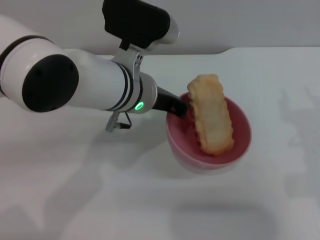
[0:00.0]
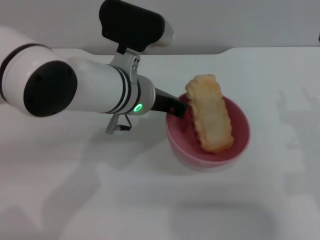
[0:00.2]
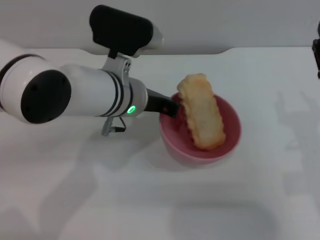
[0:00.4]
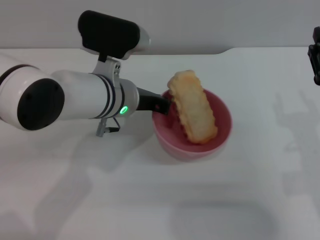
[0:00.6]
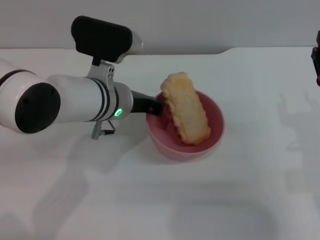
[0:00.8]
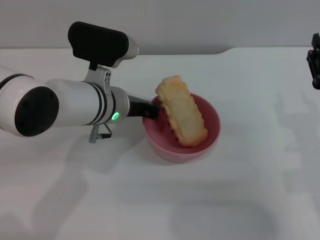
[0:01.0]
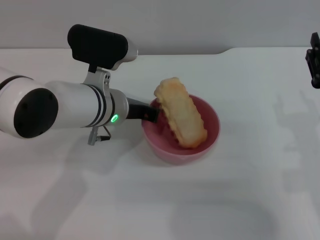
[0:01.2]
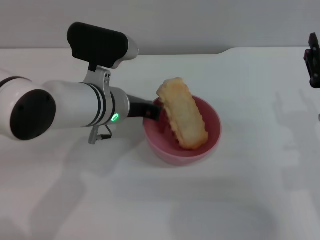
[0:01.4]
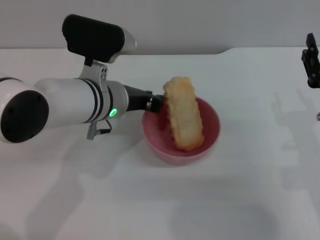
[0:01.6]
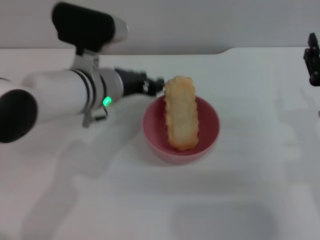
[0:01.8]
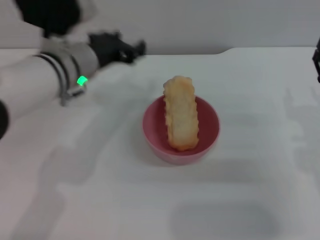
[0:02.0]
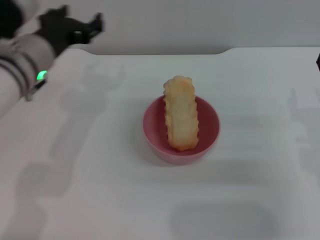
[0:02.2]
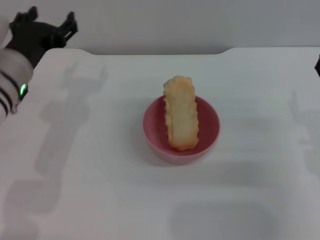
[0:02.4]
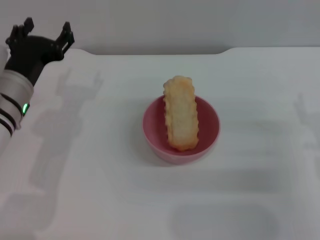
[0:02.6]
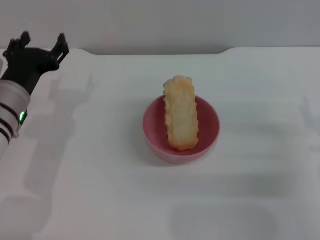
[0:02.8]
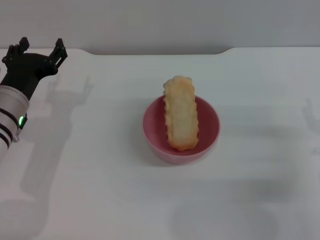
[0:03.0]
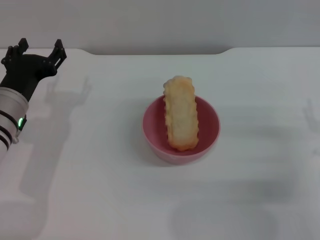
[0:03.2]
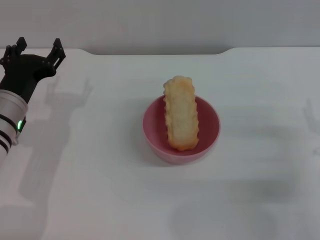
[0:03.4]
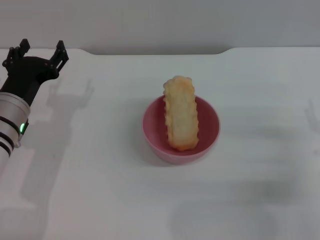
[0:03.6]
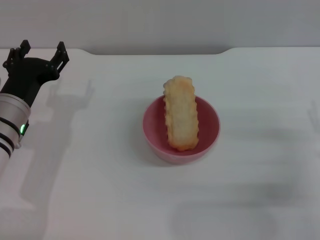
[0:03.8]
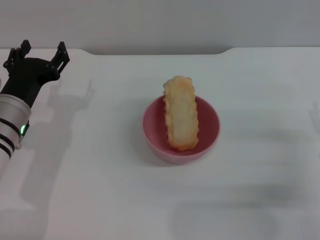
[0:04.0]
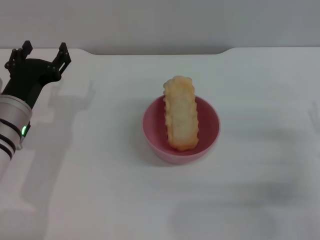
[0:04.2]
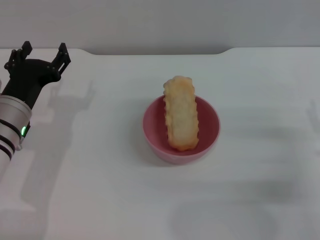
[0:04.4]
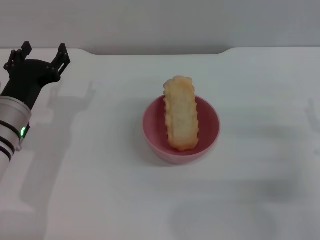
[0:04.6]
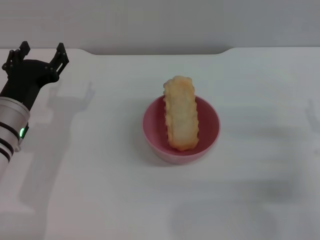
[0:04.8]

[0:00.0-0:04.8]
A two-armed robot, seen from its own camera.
Task of the whole recording: put the bread into the pink bowl and pour it out repeatedly.
Step, 0:00.0 to 0:01.8: Place the bowl on the table.
0:00.0 to 0:01.6: The left gripper changes place by some 5 cm.
0:01.6 to 0:03.2: The left gripper heads to the left, covering some 15 cm, and opens its fingers, while the right gripper goes some 5 cm to the right.
0:03.2 to 0:04.8: There are only small adjustments of the grippers.

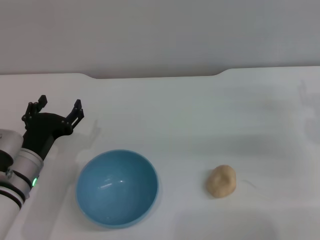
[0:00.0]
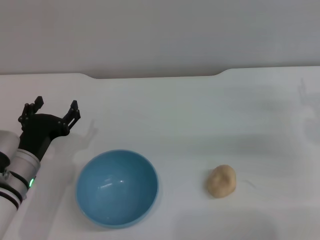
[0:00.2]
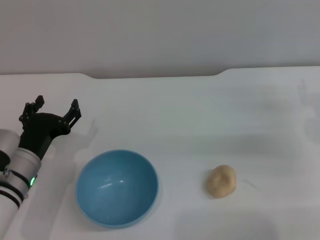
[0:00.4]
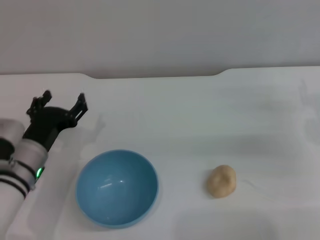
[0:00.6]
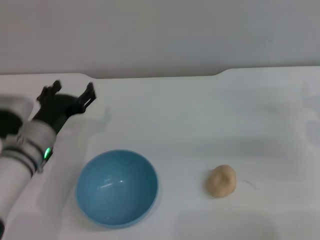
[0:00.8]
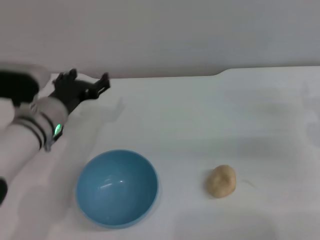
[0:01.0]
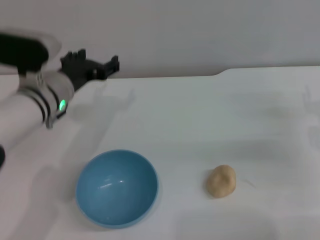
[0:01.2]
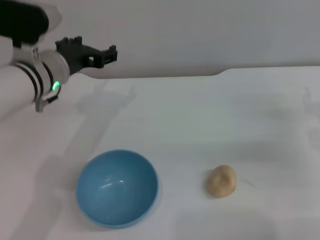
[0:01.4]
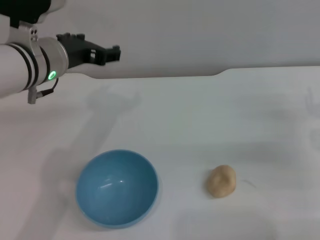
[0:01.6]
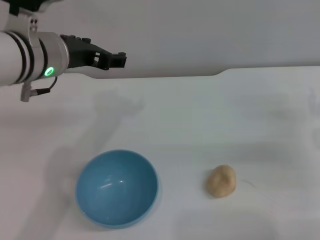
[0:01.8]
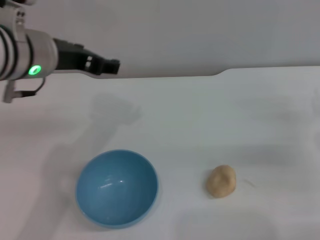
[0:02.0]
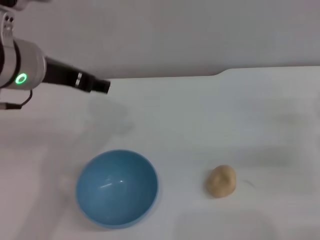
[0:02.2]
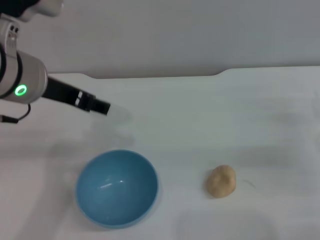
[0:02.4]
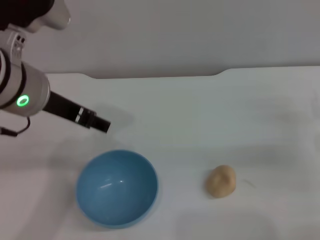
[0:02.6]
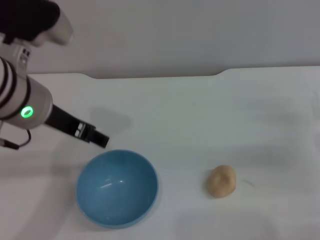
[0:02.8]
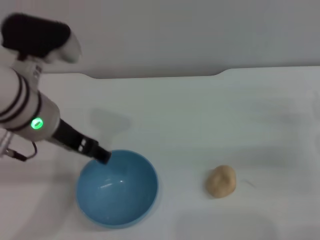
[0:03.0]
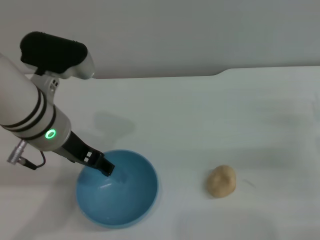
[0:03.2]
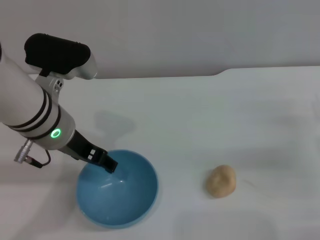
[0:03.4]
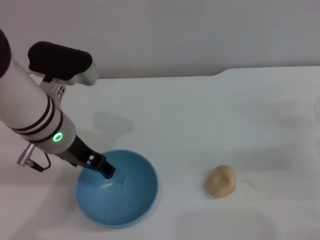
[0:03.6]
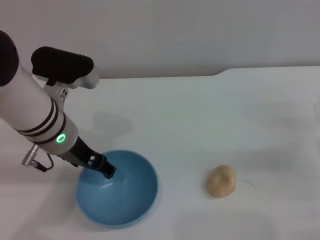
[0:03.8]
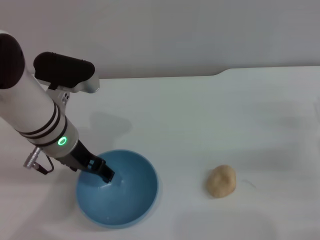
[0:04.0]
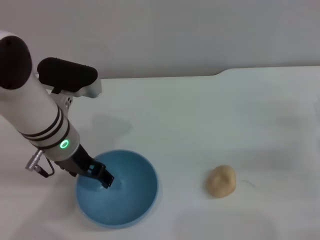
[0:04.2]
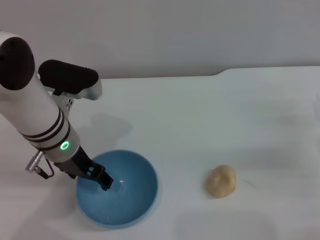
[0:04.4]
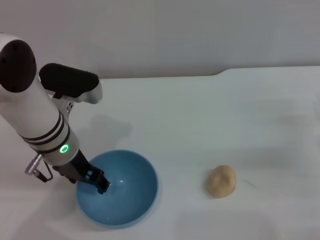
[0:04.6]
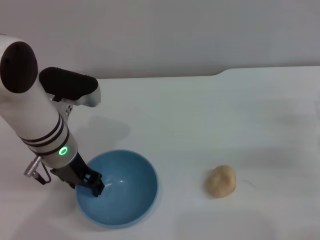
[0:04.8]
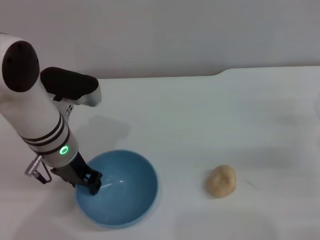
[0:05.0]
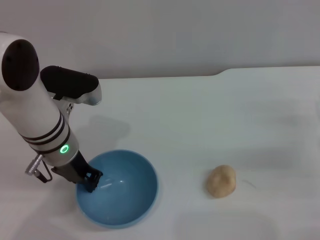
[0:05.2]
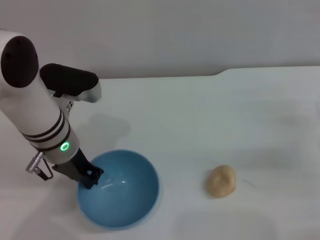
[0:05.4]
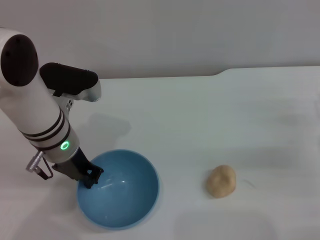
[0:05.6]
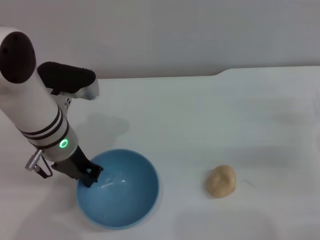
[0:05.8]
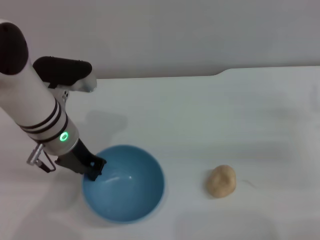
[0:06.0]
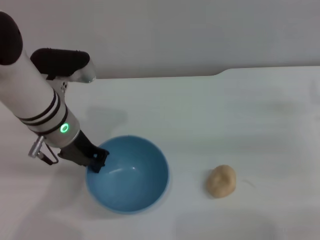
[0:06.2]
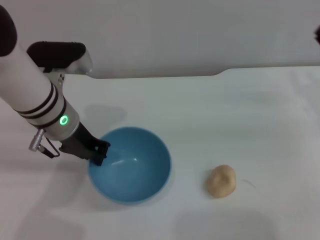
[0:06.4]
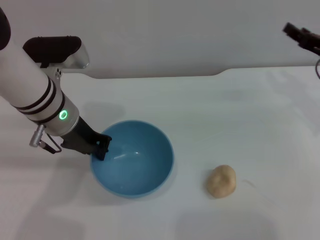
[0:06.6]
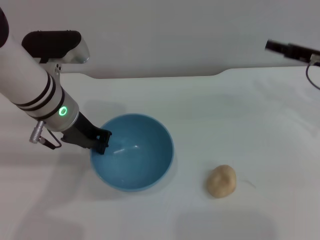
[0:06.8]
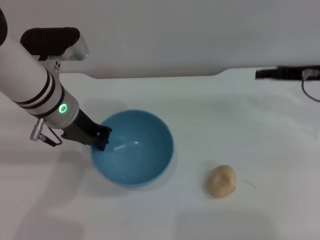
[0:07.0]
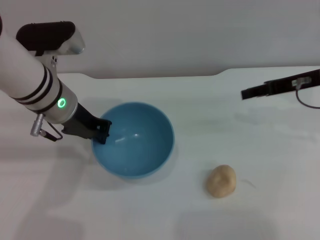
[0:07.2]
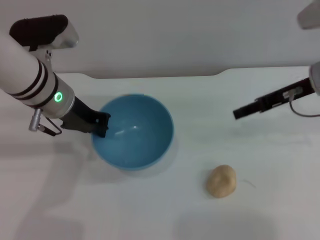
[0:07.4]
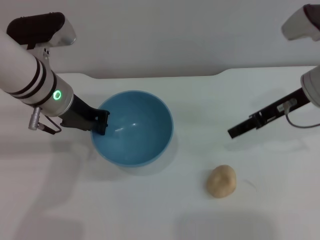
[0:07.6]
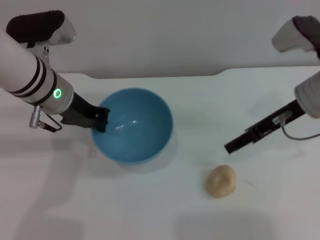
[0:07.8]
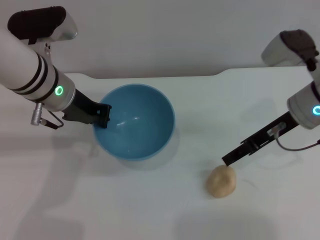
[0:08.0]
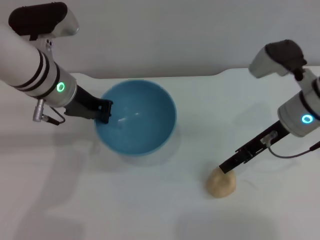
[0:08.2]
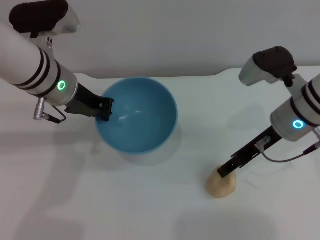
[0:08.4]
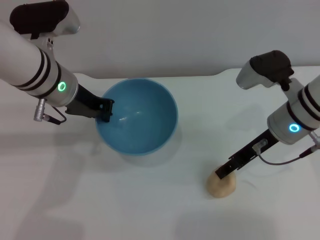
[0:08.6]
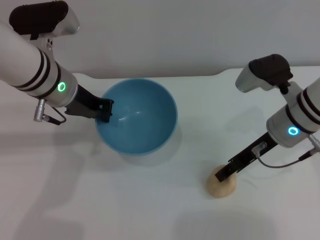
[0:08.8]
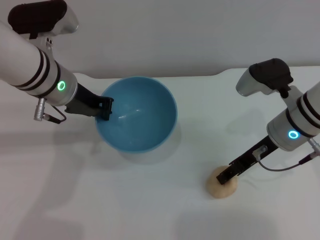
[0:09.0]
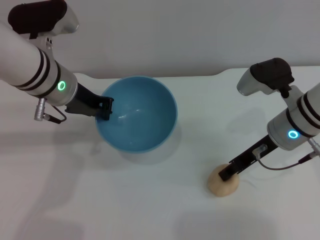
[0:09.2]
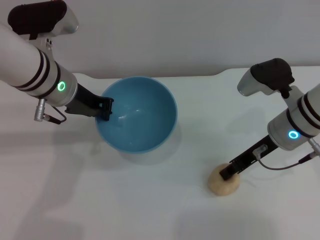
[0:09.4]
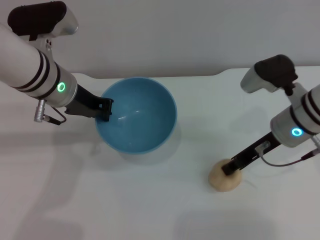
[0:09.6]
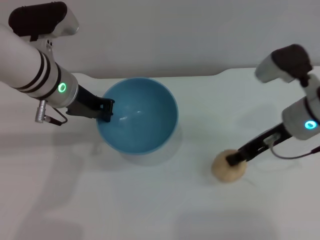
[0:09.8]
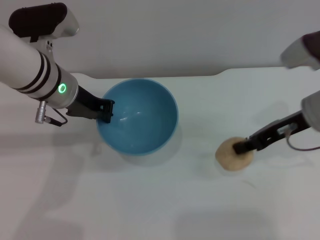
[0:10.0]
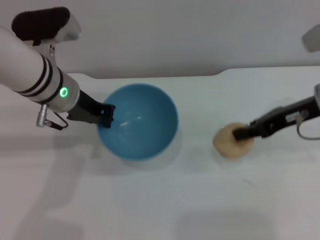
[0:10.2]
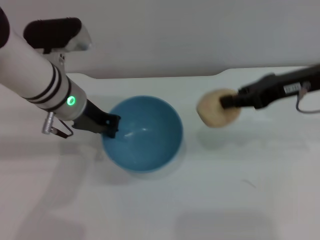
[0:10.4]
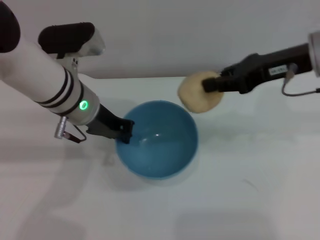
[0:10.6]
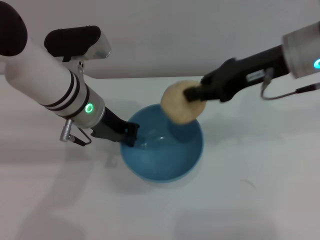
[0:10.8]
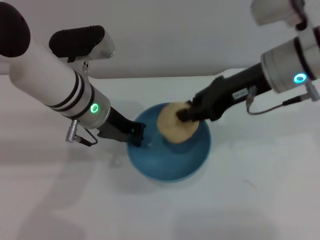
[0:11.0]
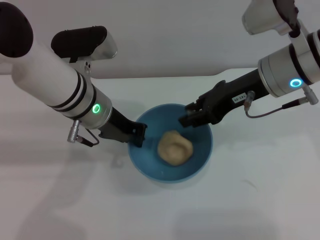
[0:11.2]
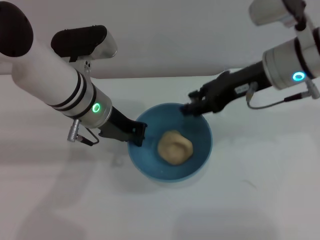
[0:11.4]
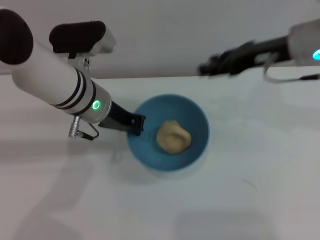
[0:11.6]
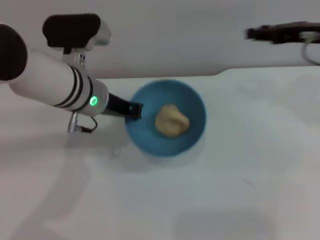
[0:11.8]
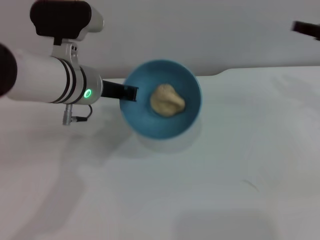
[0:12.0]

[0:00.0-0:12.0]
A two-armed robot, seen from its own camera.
Task of the whole recording: put the egg yolk pastry into the blue bowl and pour it out repeatedly.
Step, 0:00.0 to 0:07.2: Pick up the bowl with the left gripper.
Step, 0:07.6 to 0:10.2: Pick up the egg yolk pastry with the right gripper.
Step, 0:10.4 to 0:11.6: Place the egg yolk pastry into the bowl.
0:00.0 to 0:01.6: The left gripper travels upward and forward by about 20 cm.
0:01.6 to 0:03.0: The left gripper goes some 5 cm backward.
0:03.0 to 0:04.4: The left gripper moves downward, roughly 10 cm.
0:04.4 to 0:06.0: The left gripper closes its fingers.
0:06.0 to 0:07.6: The right gripper travels upward, to the left and forward by some 15 cm.
0:07.6 to 0:09.0: The right gripper shifts about 5 cm downward.
0:09.0 to 0:10.4: The right gripper is displaced upward by about 10 cm, and closes up.
0:10.4 to 0:12.0: The right gripper travels to the right by about 10 cm, and opens up.

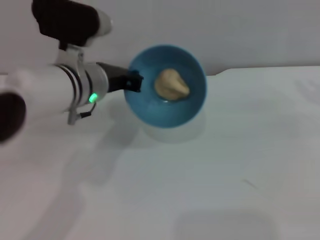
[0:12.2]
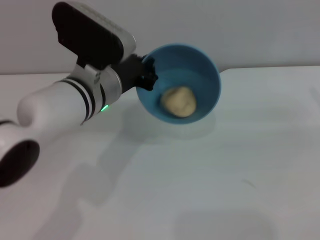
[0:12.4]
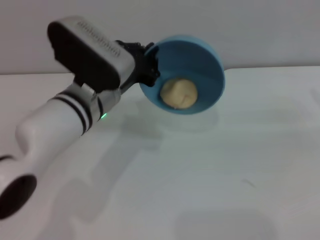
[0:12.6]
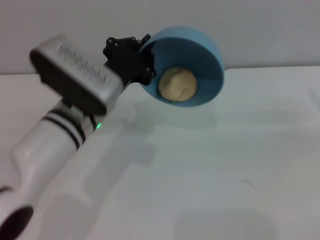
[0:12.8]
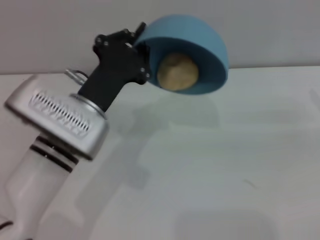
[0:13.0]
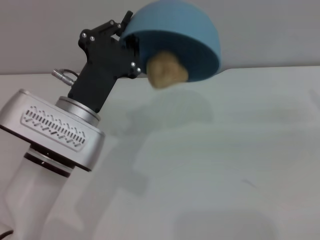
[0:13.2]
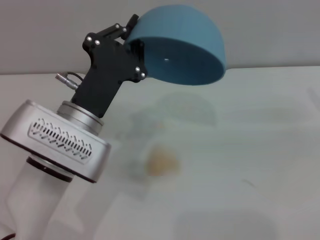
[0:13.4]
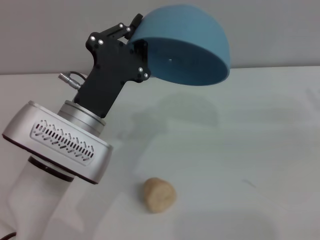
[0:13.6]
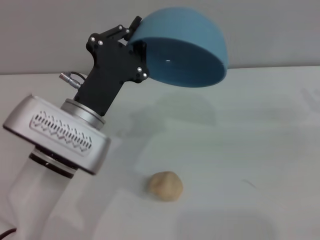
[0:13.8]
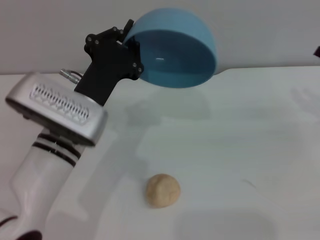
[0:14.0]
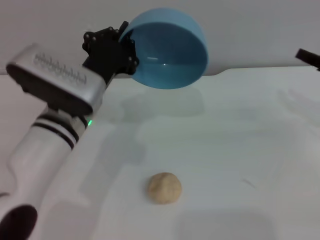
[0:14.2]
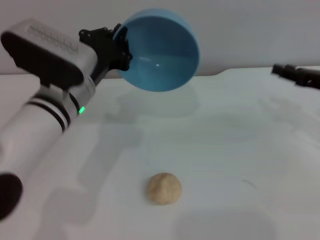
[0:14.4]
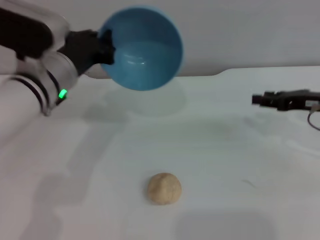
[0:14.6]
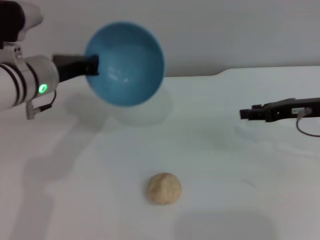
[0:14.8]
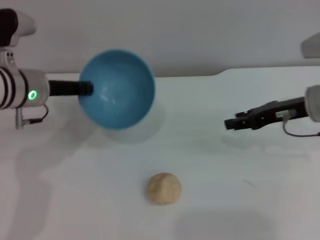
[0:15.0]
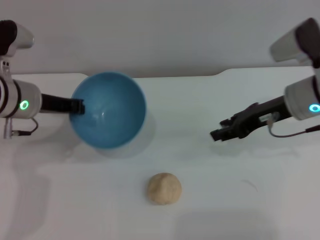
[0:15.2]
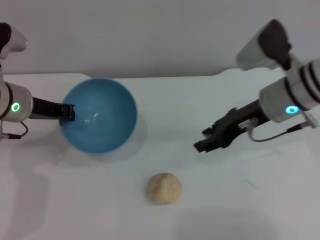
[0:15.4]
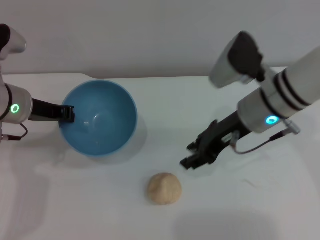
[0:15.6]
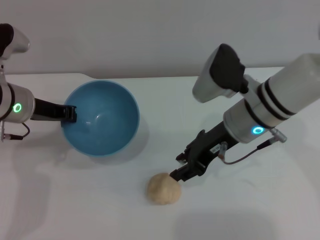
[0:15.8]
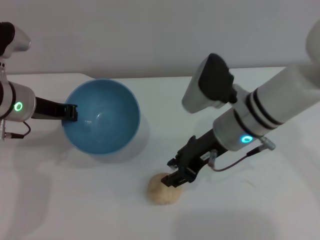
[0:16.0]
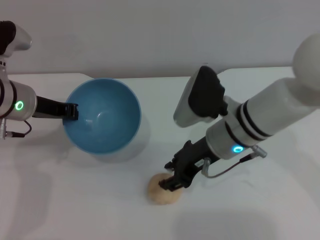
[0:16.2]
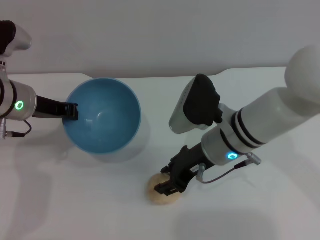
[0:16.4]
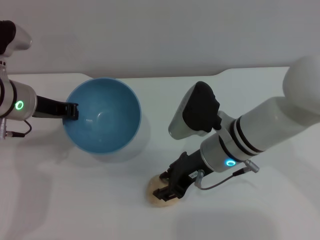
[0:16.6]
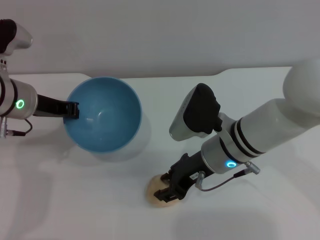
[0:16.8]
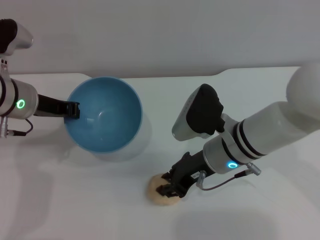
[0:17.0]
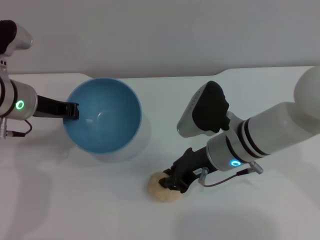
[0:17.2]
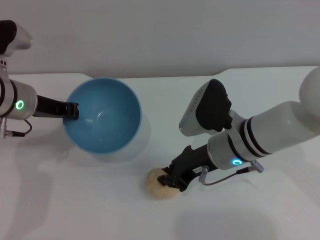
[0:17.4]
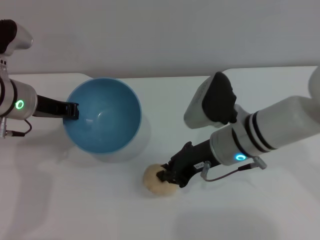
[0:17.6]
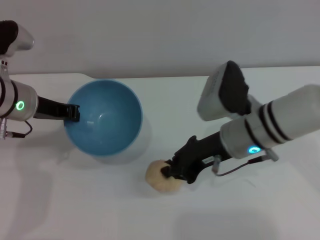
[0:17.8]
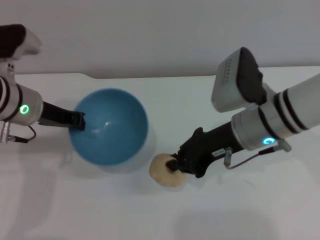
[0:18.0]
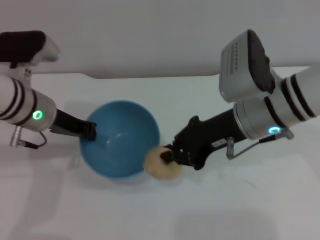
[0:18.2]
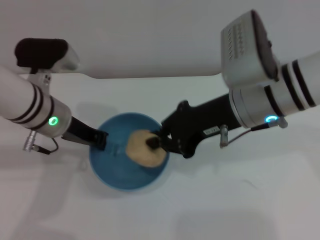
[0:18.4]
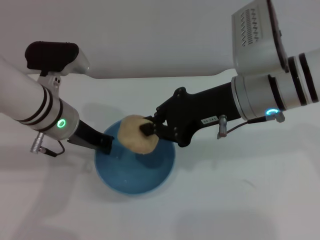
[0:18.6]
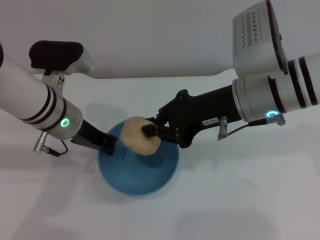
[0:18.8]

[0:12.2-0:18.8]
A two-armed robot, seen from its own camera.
Task of the whole recording: put the egg yolk pastry into the blue bowl and pour it out repeatedly.
Step, 0:12.2 to 0:13.4: Pour the egg yolk pastry out of bowl.
Step, 0:13.8 to 0:18.0: Pick up the egg yolk pastry with the right gripper.
0:12.2 to 0:13.8: The left gripper shifts about 5 cm backward.
0:13.8 to 0:15.4: The left gripper goes roughly 15 cm to the left and forward; the right gripper goes roughly 20 cm to the left.
0:15.4 to 0:17.2: The right gripper goes about 10 cm to the left and downward, and closes its fingers.
0:17.2 to 0:18.8: The right gripper heads upward, covering approximately 10 cm, and closes. Meanwhile the left gripper is displaced to the right by about 5 cm.
